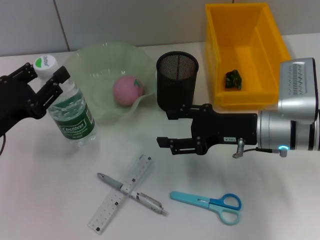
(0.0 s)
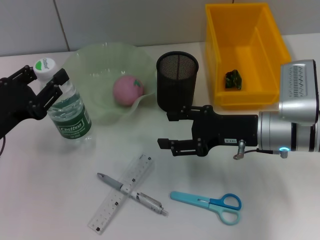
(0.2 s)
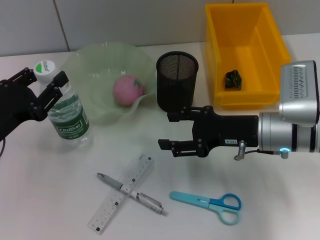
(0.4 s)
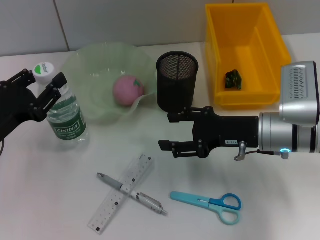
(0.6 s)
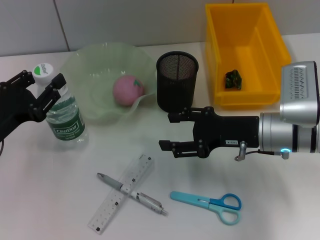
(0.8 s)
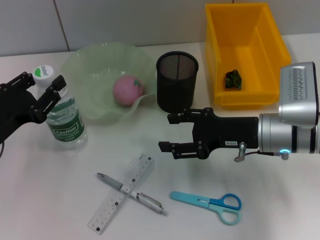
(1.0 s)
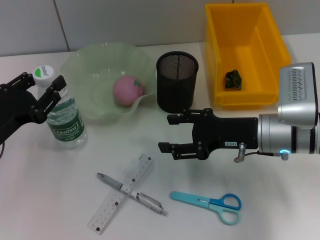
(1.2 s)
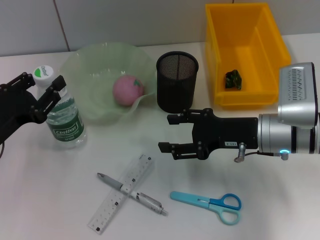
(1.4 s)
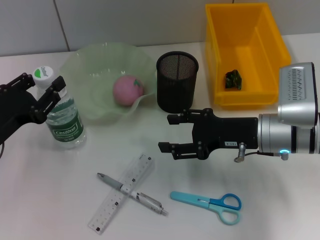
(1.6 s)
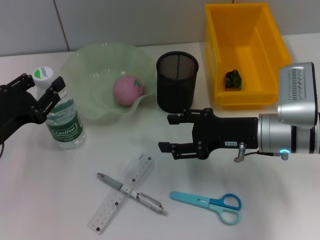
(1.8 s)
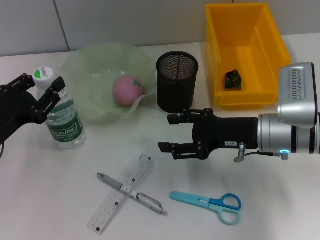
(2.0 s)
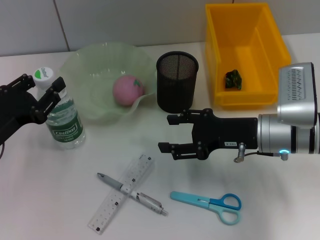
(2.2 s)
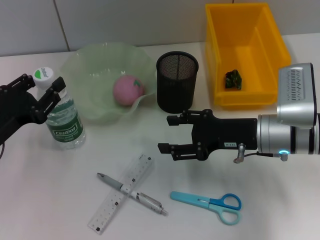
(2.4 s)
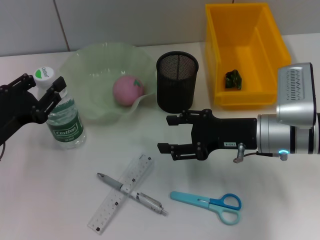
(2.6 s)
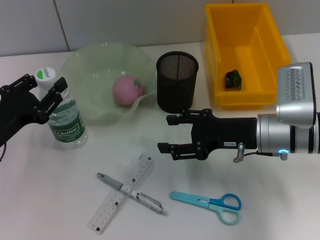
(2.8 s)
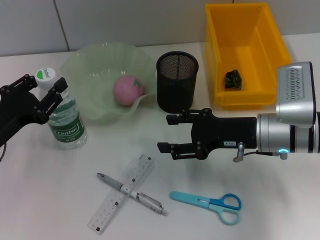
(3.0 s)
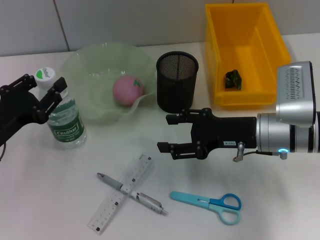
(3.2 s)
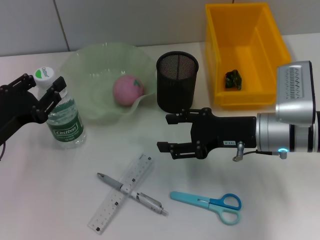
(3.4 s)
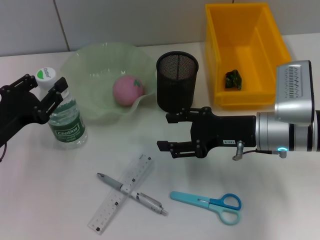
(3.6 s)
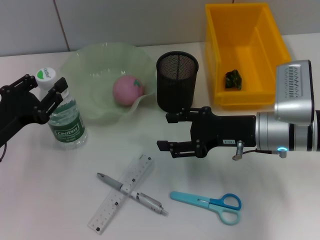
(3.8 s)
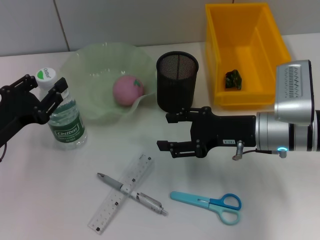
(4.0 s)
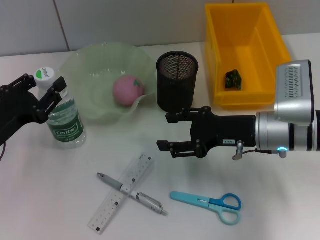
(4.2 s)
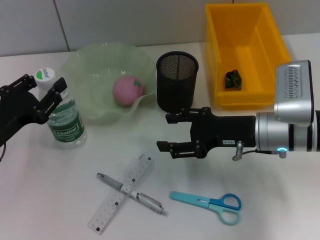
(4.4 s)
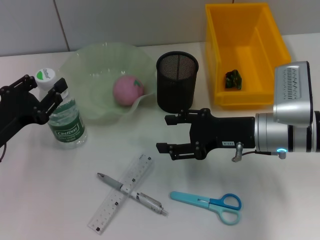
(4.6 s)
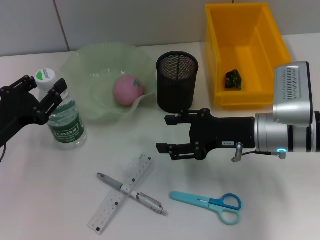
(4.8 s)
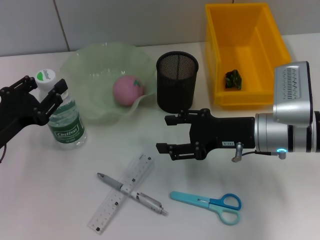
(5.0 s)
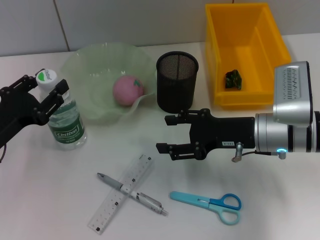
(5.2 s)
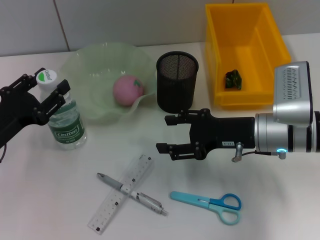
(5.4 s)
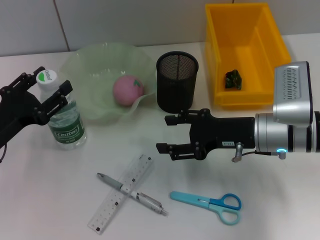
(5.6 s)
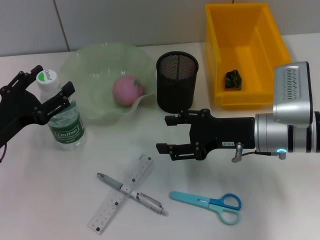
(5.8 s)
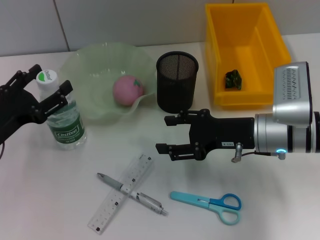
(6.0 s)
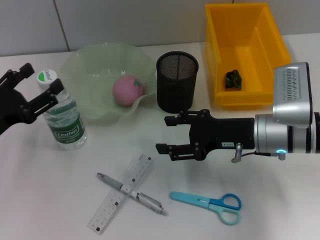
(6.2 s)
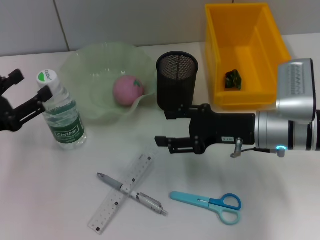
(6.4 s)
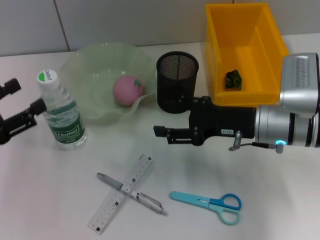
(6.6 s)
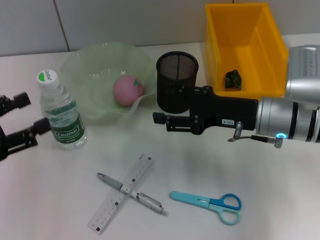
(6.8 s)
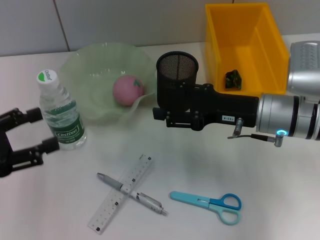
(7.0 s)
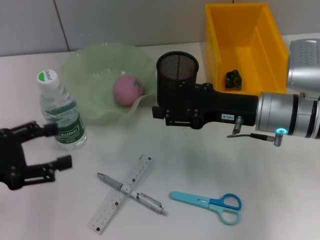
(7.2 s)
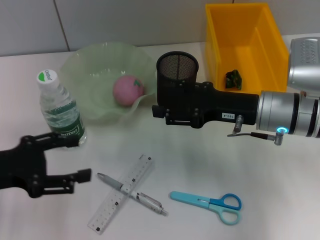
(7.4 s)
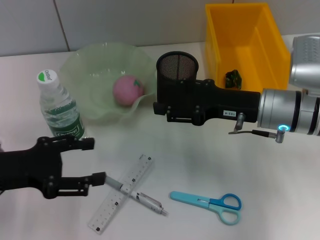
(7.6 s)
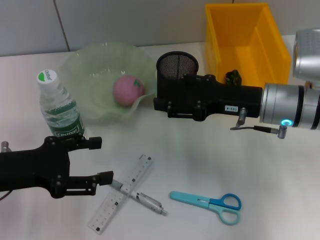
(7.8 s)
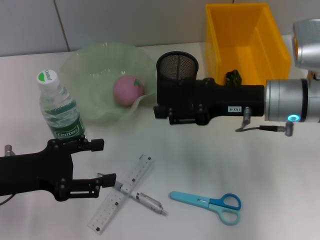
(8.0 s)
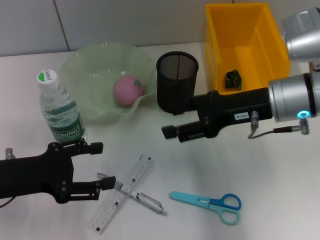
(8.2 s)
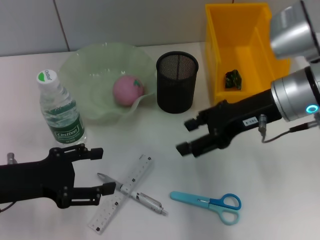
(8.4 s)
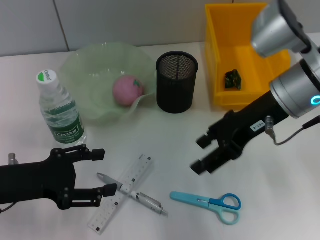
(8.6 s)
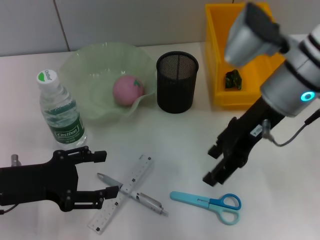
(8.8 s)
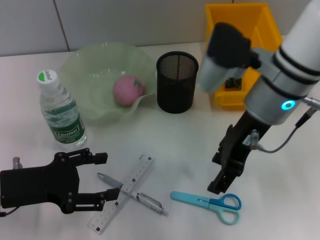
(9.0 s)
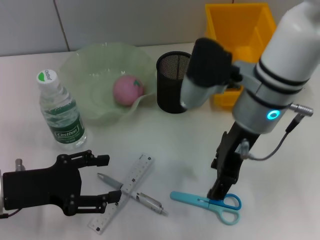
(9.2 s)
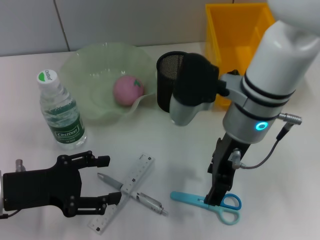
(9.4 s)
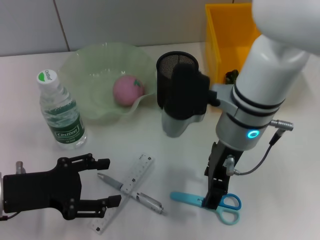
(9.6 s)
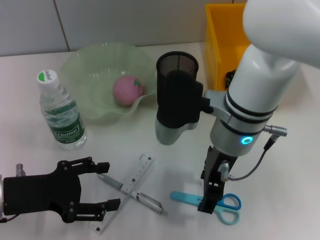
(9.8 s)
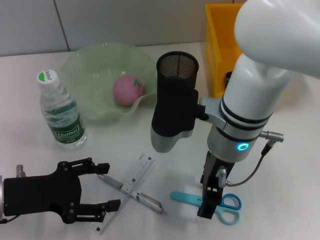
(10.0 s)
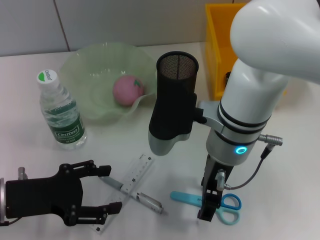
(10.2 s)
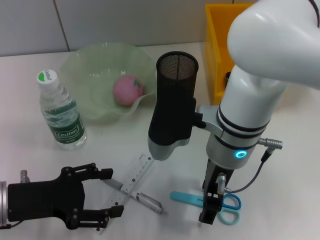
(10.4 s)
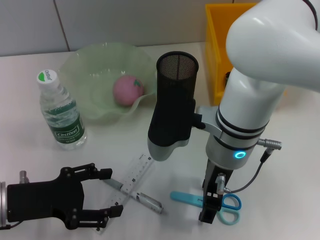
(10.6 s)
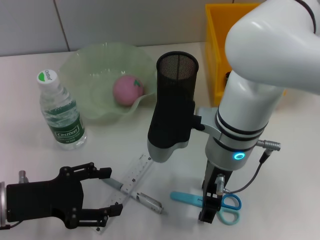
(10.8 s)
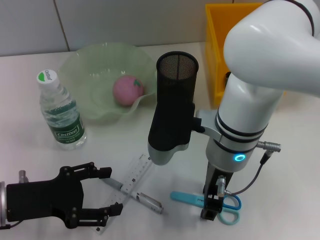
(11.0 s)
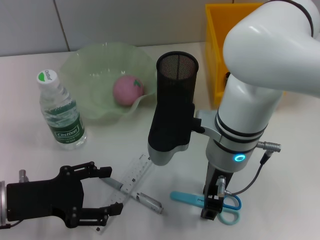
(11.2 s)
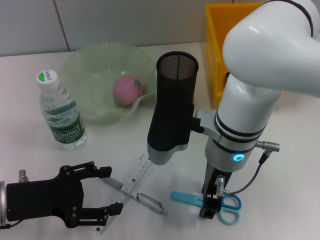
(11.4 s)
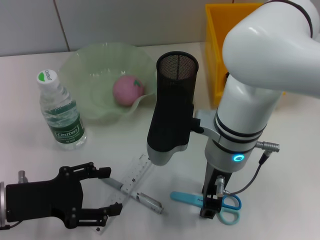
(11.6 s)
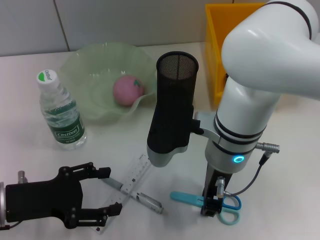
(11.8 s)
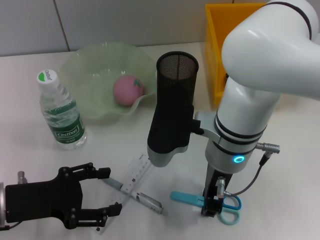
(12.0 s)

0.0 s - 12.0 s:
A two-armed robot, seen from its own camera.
Step, 0.0 s - 5.8 s: Place the water bottle on the table with the left hand.
0.0 s - 1.6 s: The grippers move only a little.
1.6 s - 4.4 s: The two grippers keep their place.
4.4 s - 6.0 s: The left gripper opens up.
7.6 s - 9.0 s: The right gripper goes some 10 cm upward and to the left.
9.0 s - 10.4 s: The right gripper is displaced to the left by roughly 5 cm.
10.4 s - 12.0 s: The right gripper closes up.

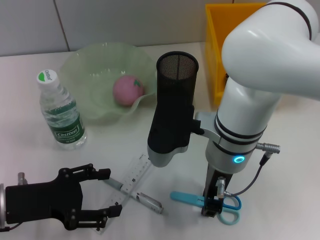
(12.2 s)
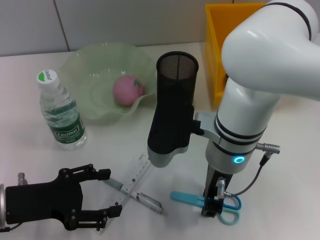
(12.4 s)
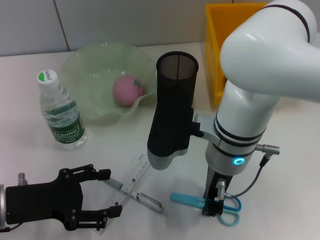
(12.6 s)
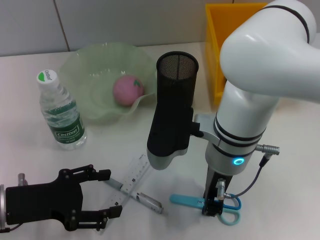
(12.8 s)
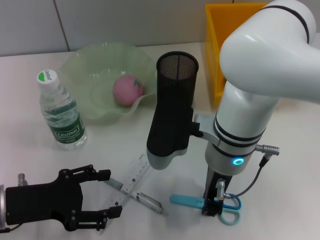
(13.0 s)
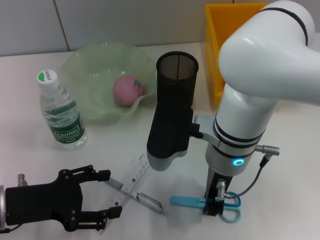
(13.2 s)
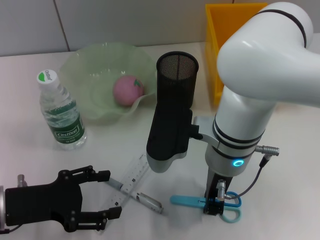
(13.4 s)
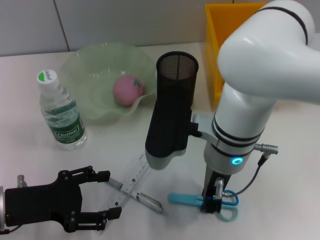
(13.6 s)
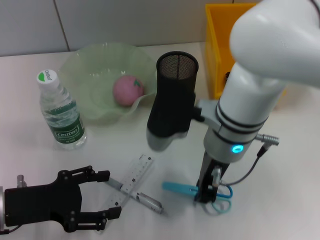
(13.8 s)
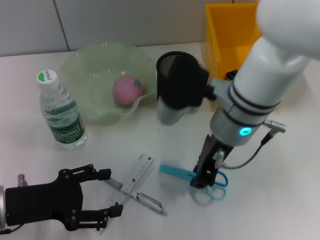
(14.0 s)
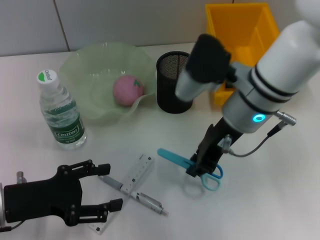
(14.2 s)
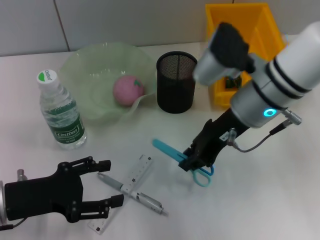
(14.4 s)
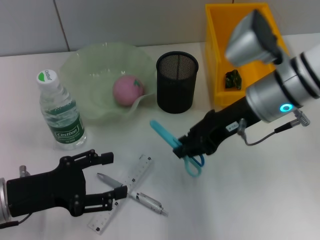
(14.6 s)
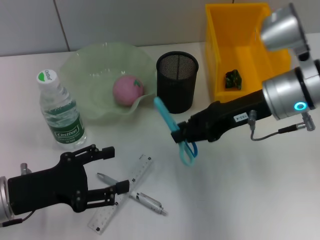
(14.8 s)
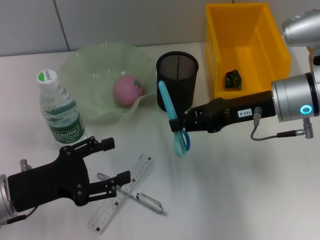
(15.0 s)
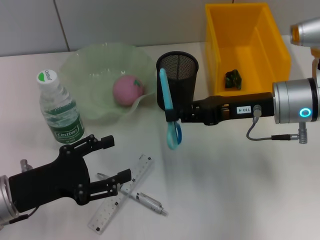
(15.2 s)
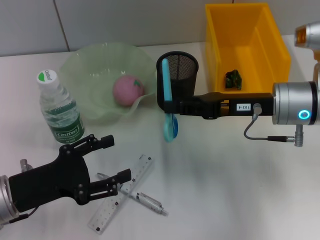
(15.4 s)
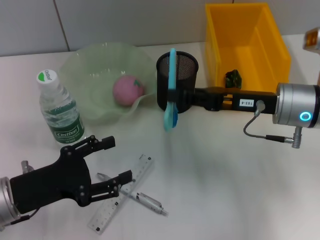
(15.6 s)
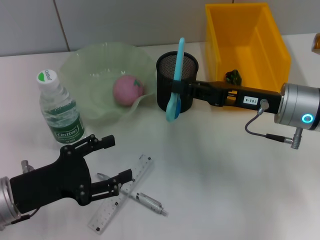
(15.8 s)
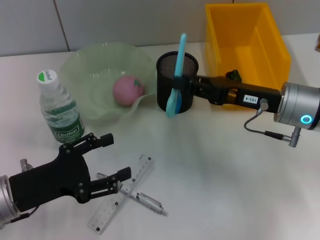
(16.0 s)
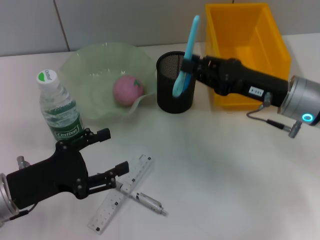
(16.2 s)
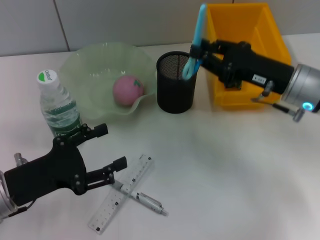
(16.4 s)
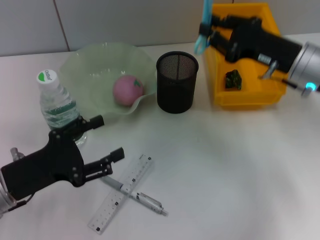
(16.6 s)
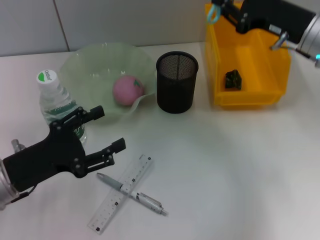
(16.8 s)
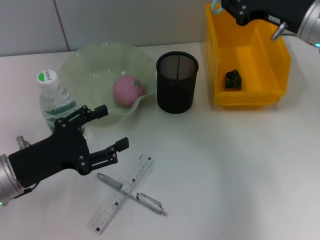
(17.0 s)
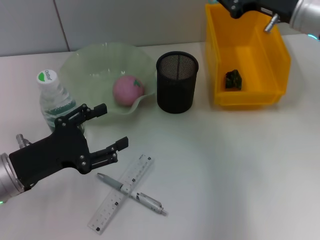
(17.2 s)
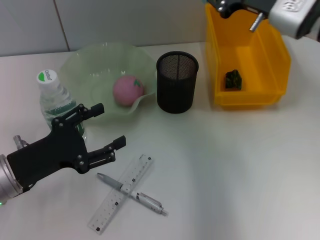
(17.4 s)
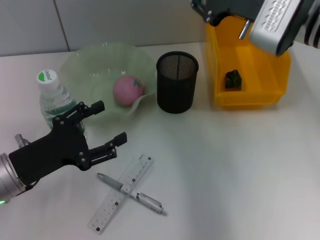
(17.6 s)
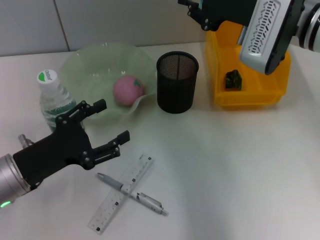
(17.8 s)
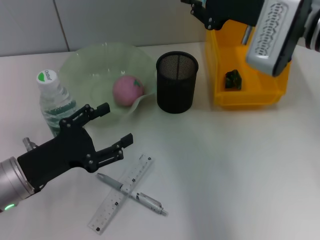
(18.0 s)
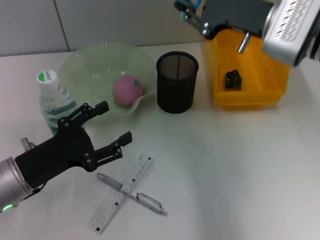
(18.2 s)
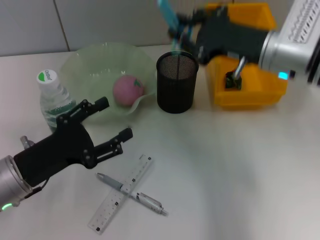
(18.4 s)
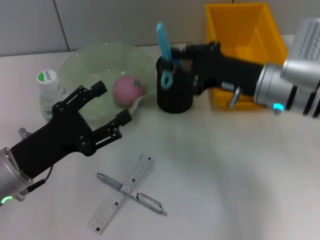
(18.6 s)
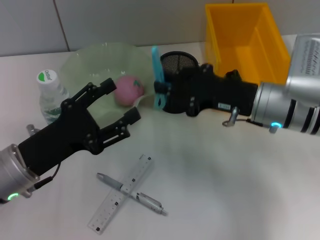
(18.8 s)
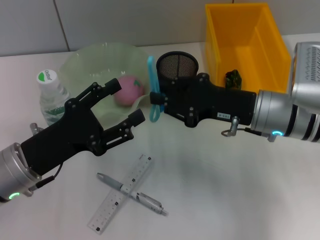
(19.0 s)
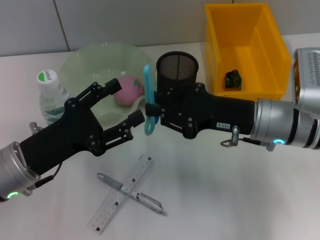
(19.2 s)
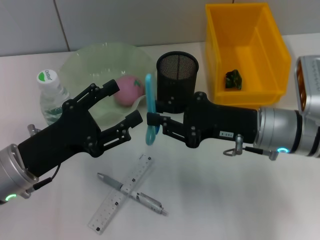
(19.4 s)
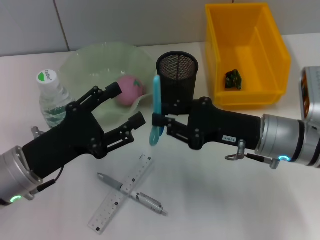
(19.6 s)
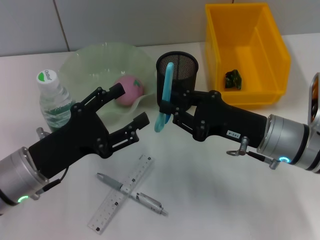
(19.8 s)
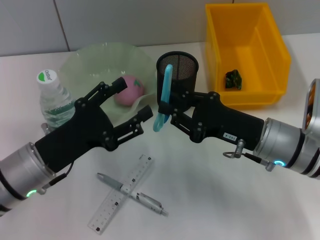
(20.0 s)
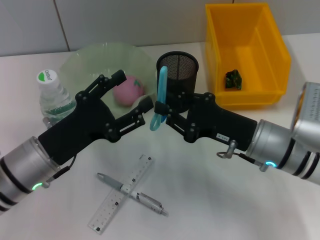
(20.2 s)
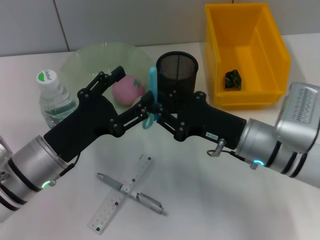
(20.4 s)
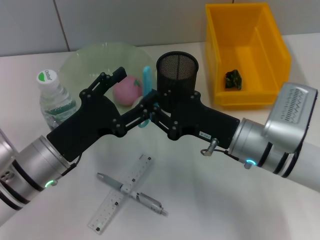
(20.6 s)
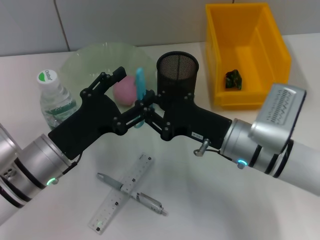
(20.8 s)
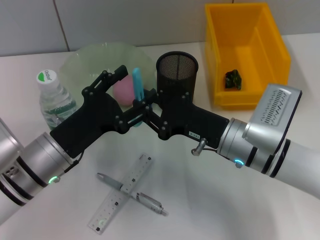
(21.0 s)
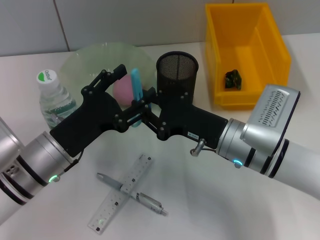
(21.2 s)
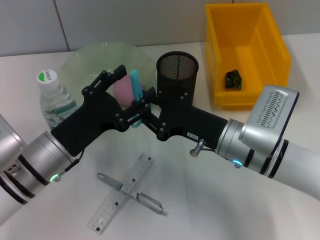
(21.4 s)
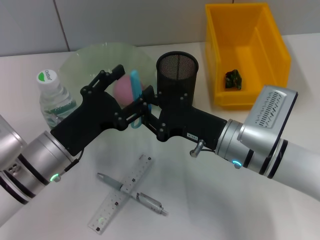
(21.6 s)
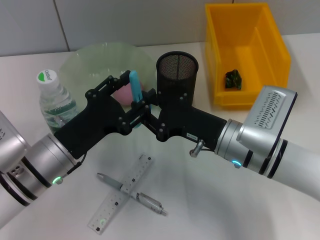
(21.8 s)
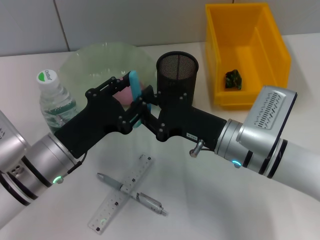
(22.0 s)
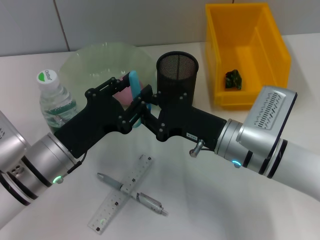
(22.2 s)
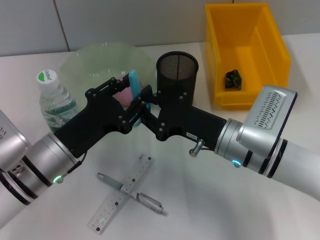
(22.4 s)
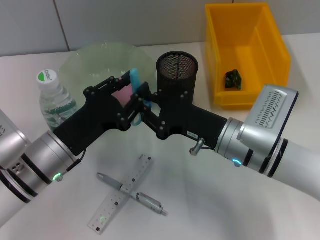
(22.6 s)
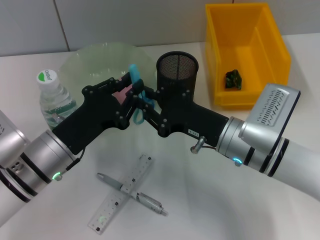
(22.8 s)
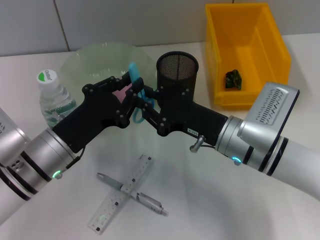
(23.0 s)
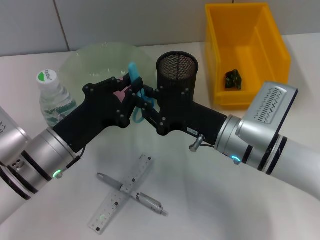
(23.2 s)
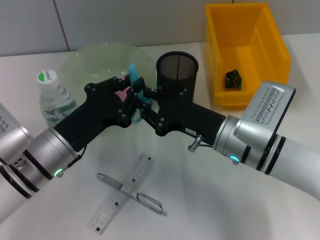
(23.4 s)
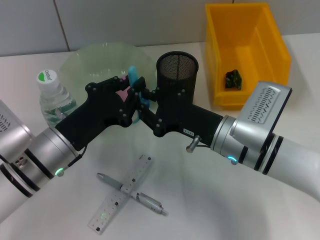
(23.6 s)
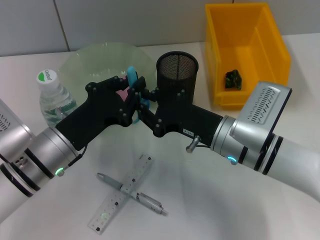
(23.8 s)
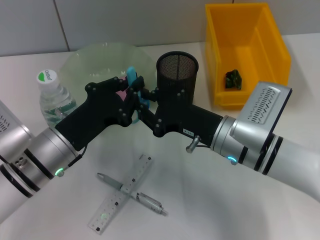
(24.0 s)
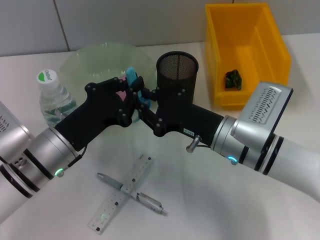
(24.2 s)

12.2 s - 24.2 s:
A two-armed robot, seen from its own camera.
12.2 s - 13.8 s: The two grippers keep their place.
13.8 s - 15.2 s: The right gripper moves to the right, approximately 15 cm.
16.6 s - 18.2 s: The right gripper changes place by roughly 5 cm.
18.2 s - 19.8 s: The right gripper travels downward and backward by about 15 cm.
19.8 s - 21.2 s: The right gripper goes approximately 5 cm to the left.
21.2 s - 22.6 s: The left gripper closes its fingers.
22.6 s - 24.2 s: The left gripper closes.
